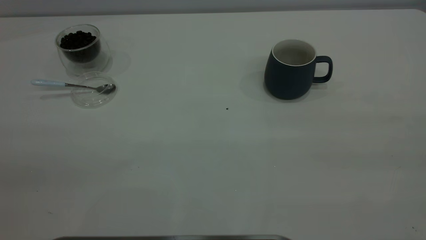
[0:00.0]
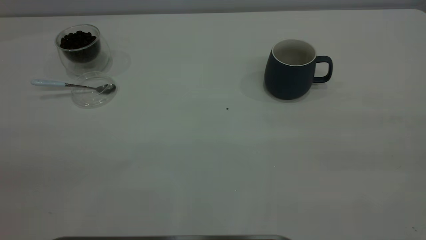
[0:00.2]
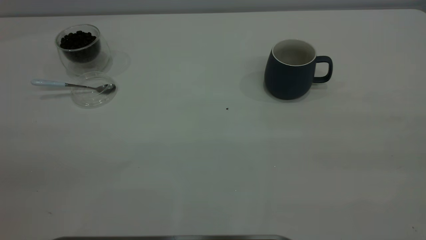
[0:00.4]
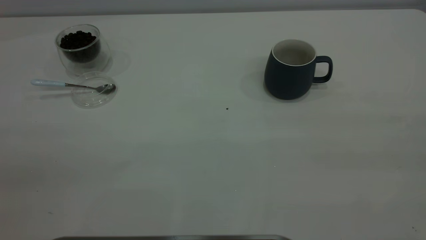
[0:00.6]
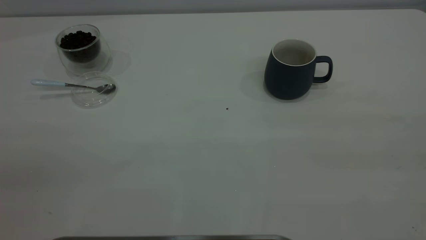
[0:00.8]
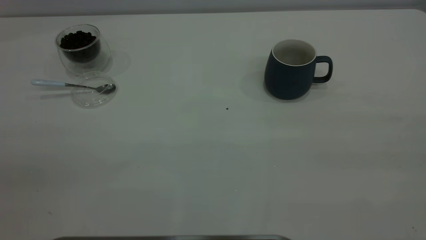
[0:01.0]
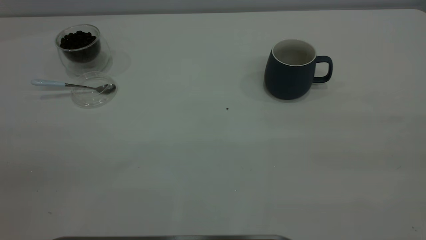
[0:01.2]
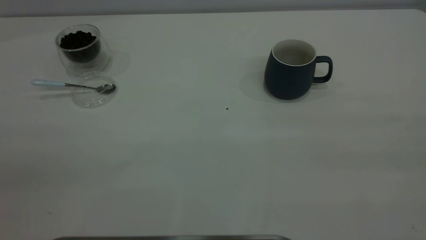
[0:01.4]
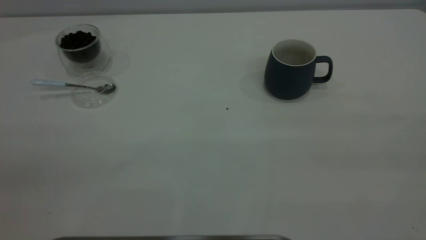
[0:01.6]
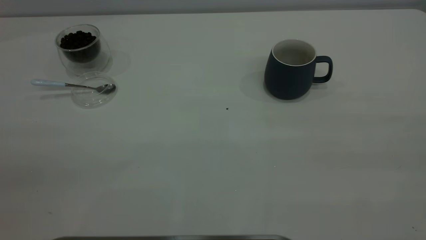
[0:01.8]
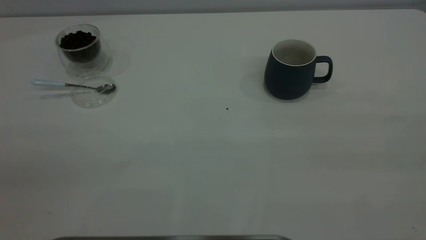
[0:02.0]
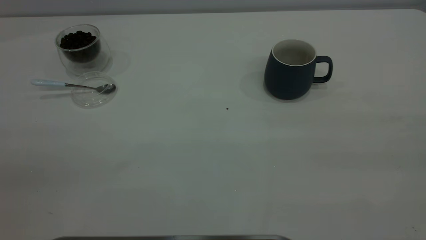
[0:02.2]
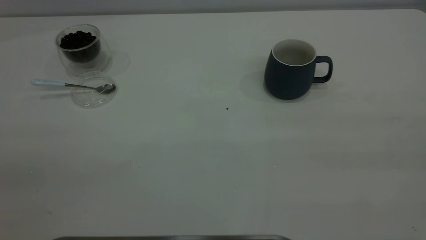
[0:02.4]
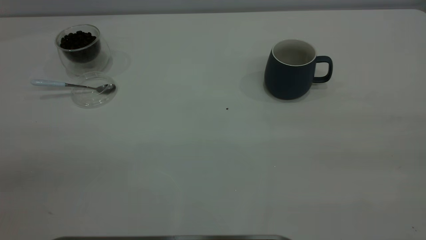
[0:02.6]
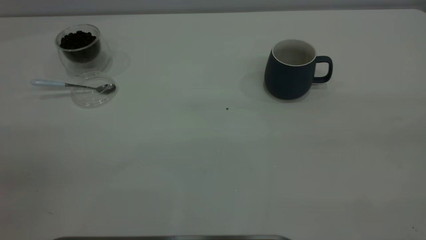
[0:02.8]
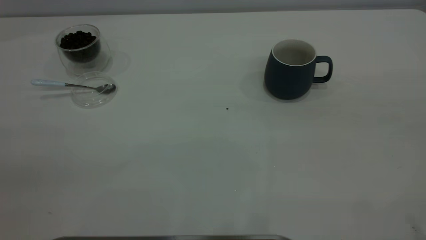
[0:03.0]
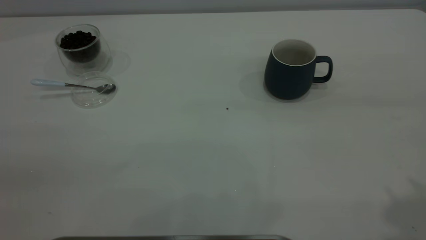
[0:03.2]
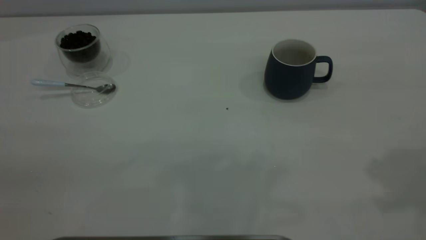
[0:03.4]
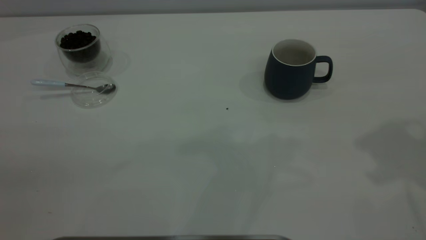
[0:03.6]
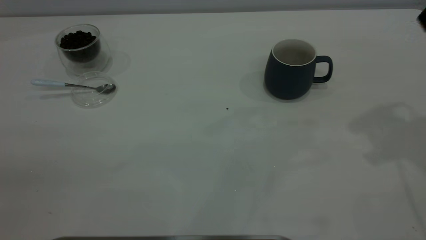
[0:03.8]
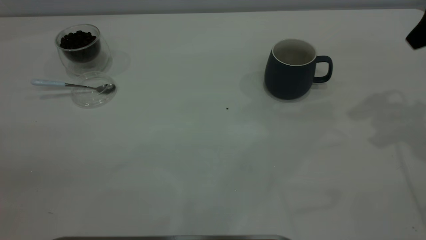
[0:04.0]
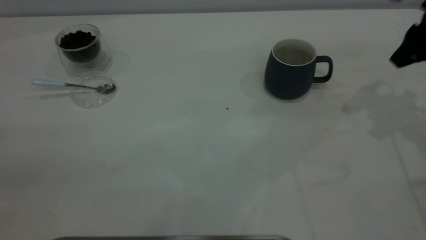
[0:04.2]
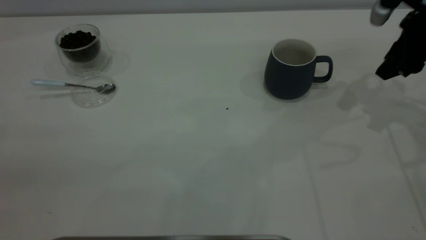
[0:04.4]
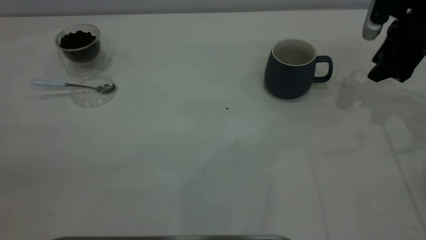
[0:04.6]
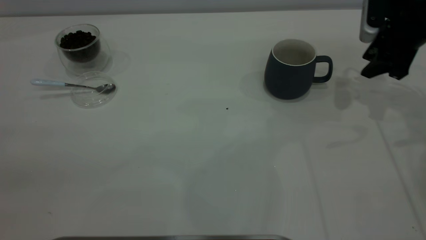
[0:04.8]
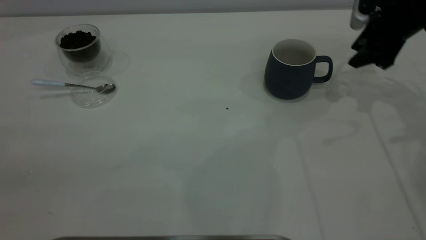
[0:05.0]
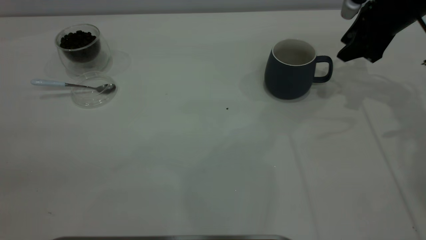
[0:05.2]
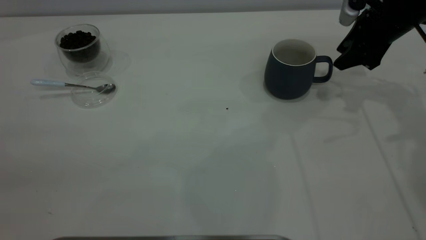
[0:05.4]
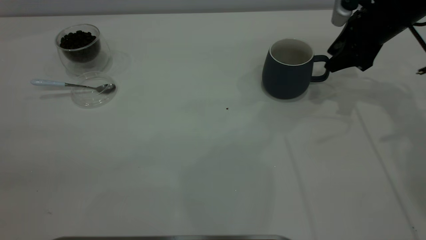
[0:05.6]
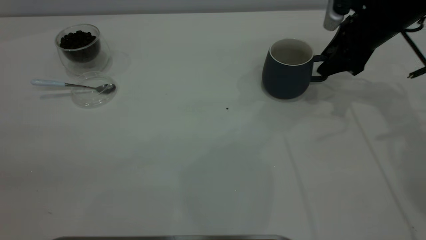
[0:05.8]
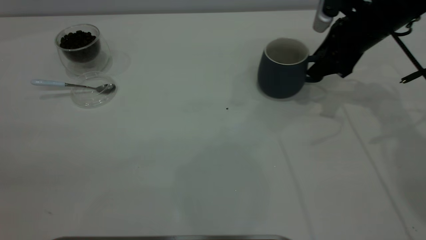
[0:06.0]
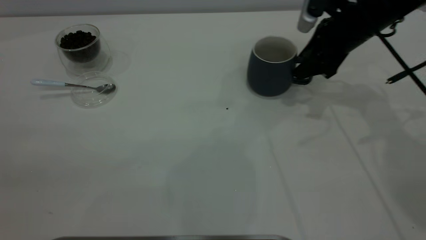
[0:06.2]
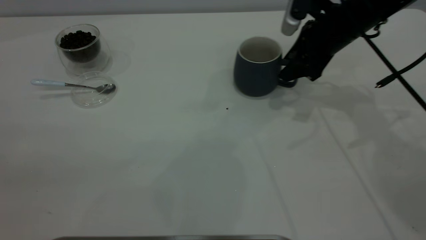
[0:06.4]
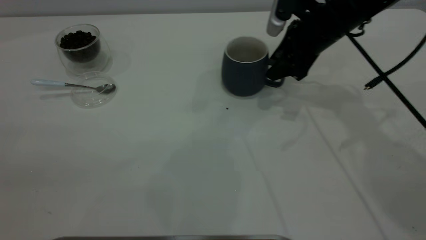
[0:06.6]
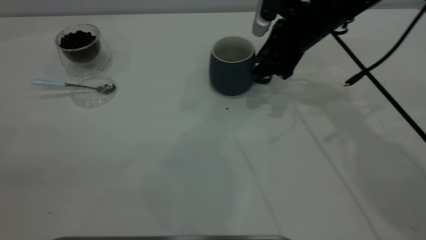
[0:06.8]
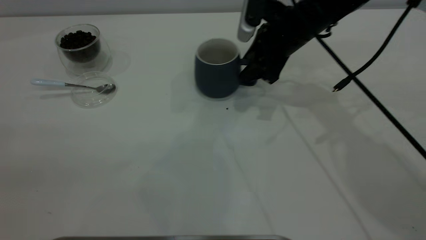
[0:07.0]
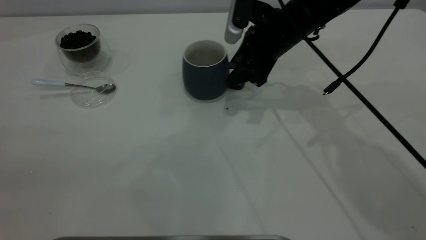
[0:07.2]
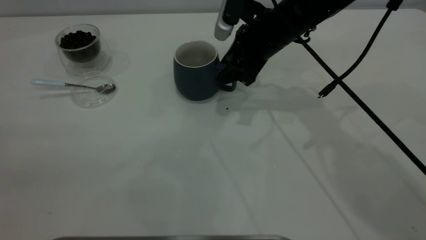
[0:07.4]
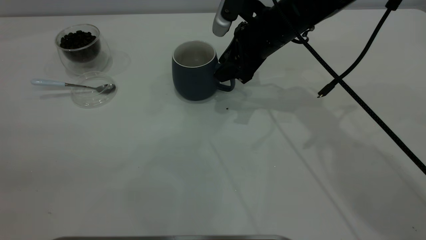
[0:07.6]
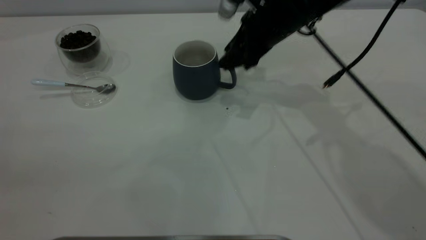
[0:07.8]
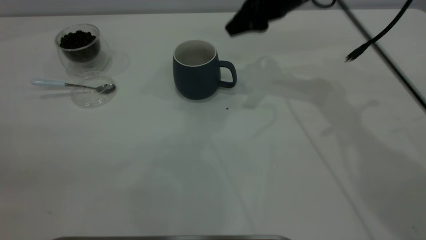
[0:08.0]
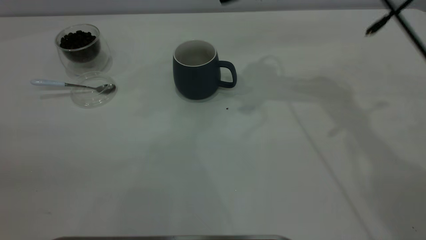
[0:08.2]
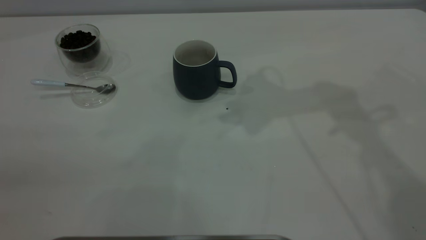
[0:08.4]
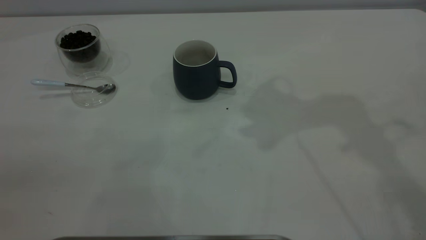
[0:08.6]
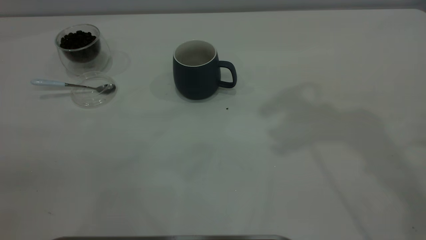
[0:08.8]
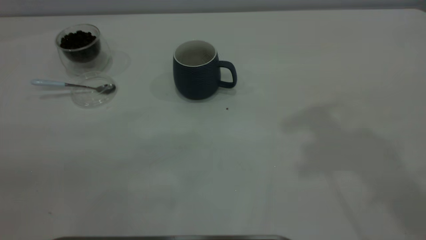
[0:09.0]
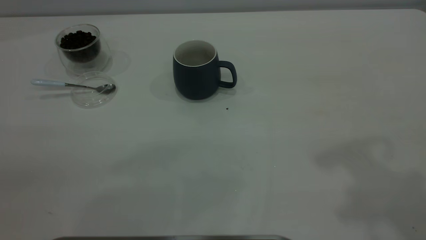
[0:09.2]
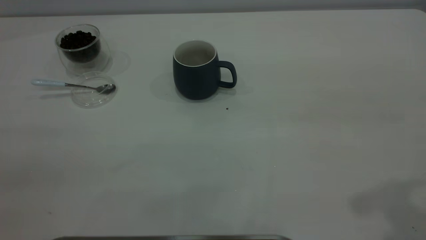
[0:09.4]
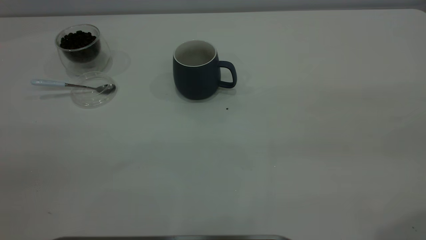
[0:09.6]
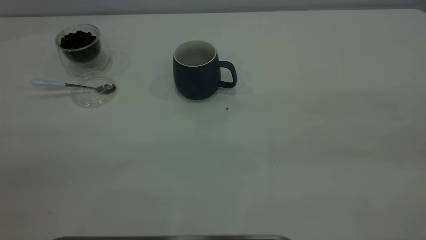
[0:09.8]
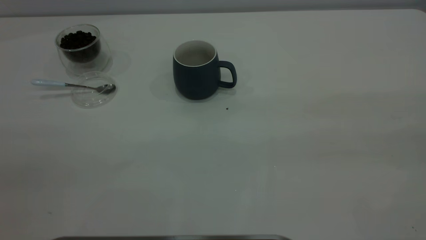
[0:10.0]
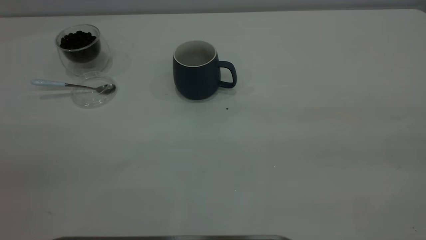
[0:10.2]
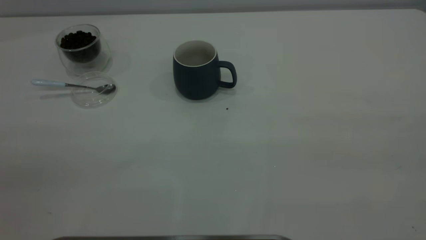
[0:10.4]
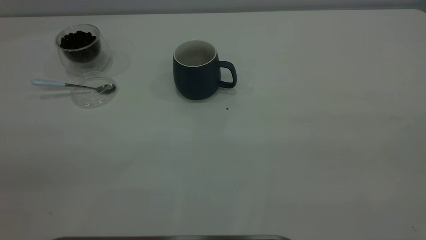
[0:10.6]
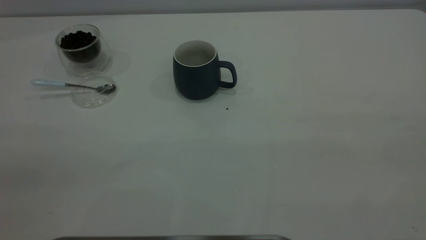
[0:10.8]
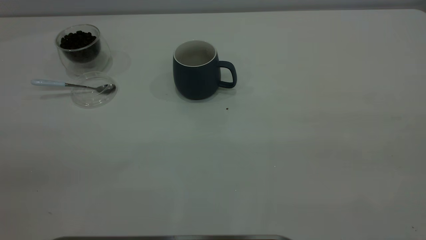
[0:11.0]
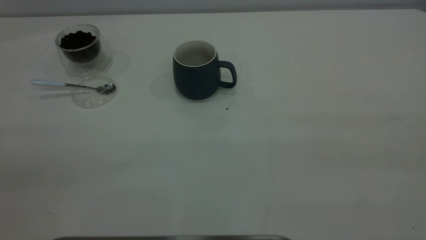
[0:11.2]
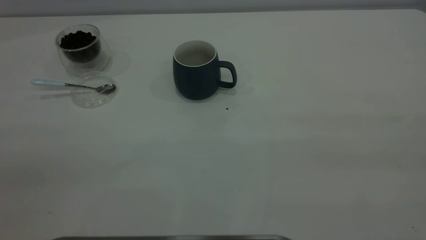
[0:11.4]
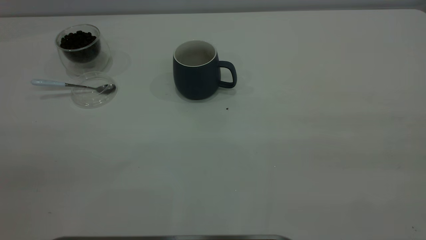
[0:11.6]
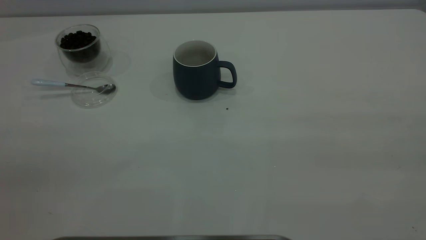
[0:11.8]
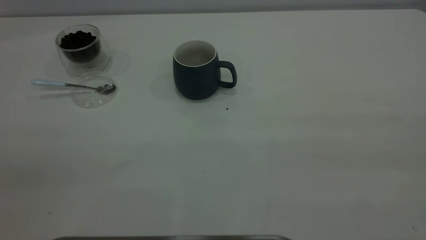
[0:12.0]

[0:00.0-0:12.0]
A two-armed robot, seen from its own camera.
Task of the whole recording: the right gripper place the grey cup in the center of the table, the left gripper take the blue spoon from the cup lid and scoop out the coffee beans from the coffee cup and put them into the grey cup, the left gripper put the spoon back into the cup lid.
Step, 0:00.0 to 0:08.0: Move the cup to the center of view.
0:00.0 to 0:01.6: Both grippers stay about where they are.
0:03.0 to 0:04.4: The right gripper goes roughly 40 cm forward and downward.
0:04.4 to 0:06.0: The right gripper shifts about 10 cm to the left.
0:06.0 to 0:07.6: The right gripper heads to the left, covering about 15 cm.
0:07.6 to 0:09.0: The right gripper heads upward and backward, covering roughly 35 cm.

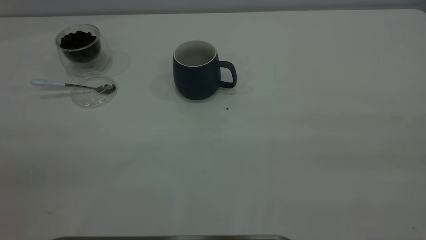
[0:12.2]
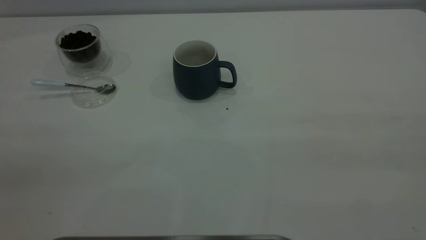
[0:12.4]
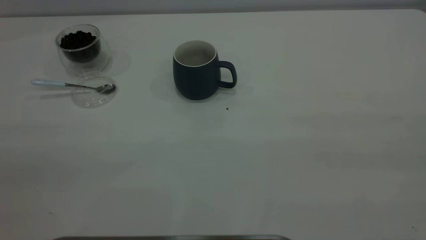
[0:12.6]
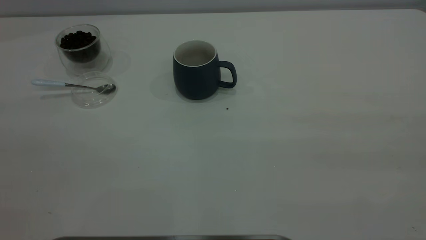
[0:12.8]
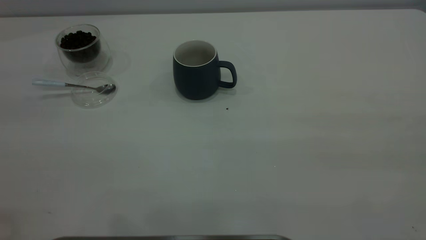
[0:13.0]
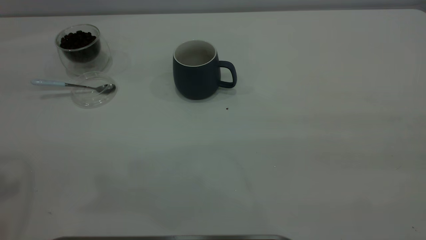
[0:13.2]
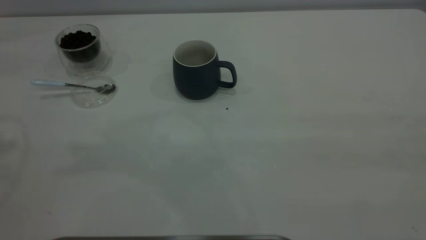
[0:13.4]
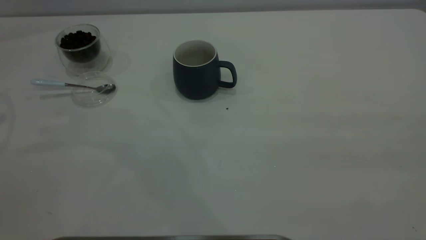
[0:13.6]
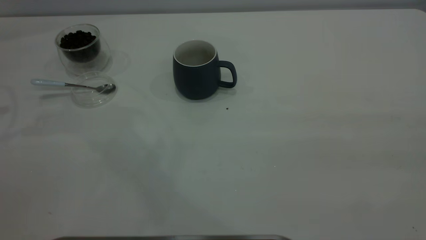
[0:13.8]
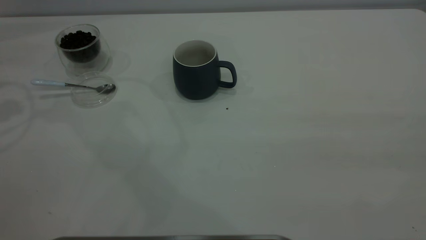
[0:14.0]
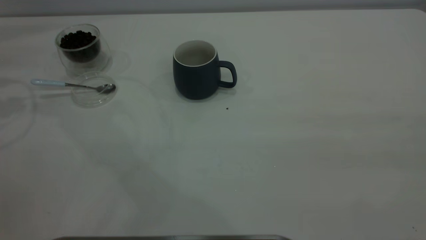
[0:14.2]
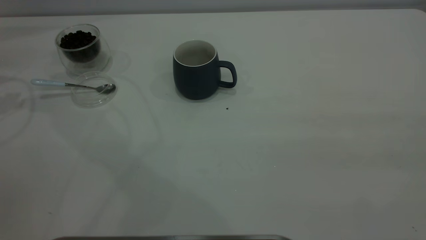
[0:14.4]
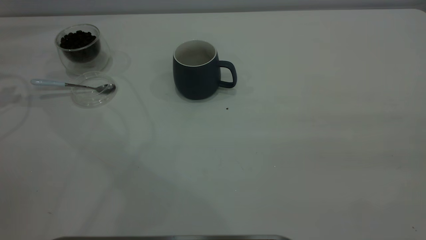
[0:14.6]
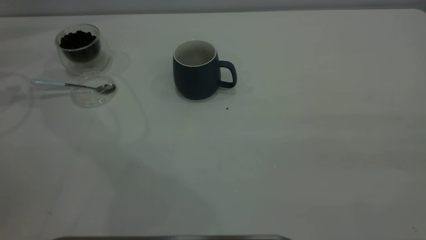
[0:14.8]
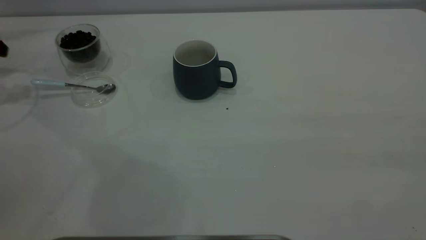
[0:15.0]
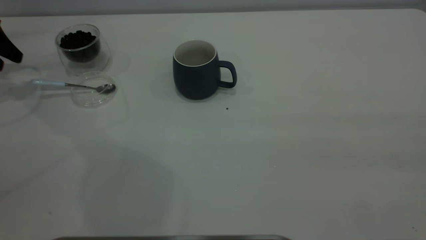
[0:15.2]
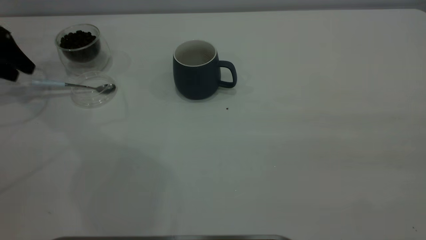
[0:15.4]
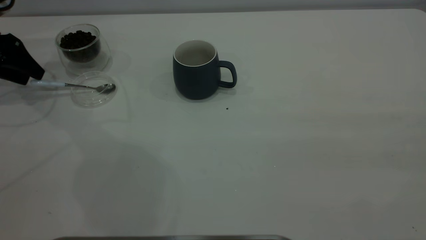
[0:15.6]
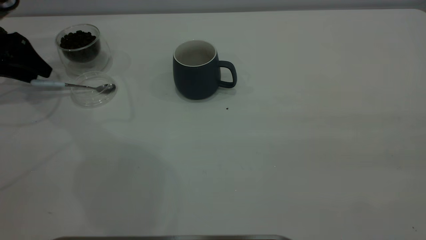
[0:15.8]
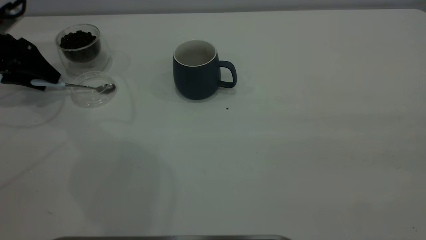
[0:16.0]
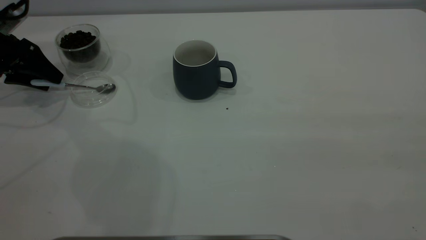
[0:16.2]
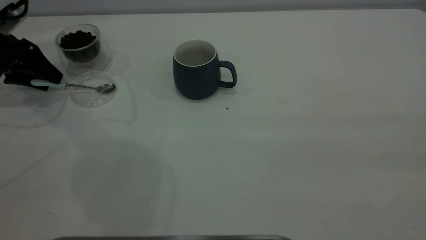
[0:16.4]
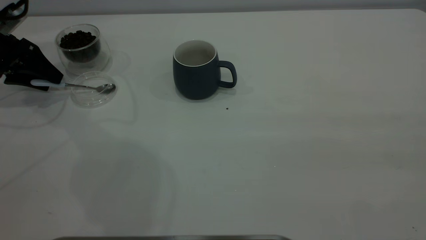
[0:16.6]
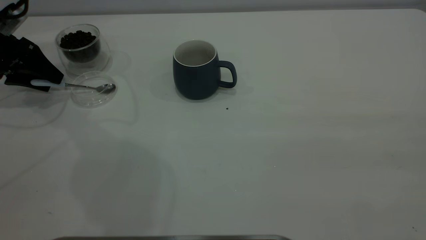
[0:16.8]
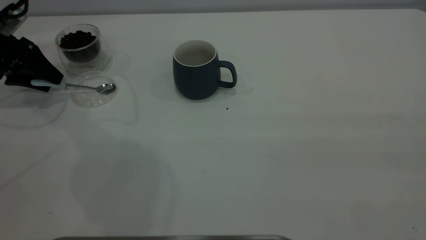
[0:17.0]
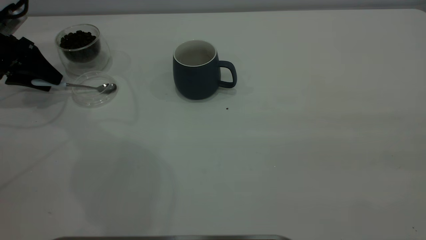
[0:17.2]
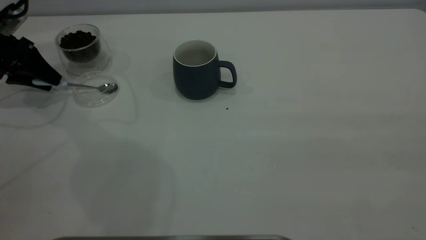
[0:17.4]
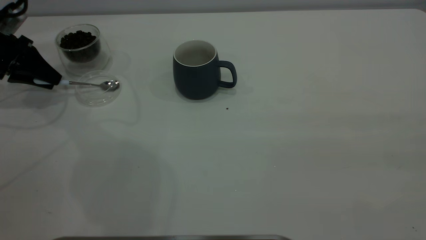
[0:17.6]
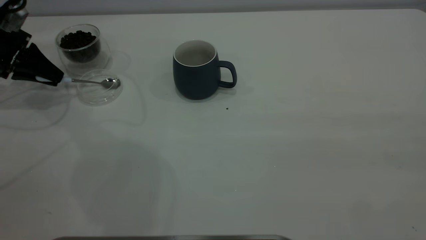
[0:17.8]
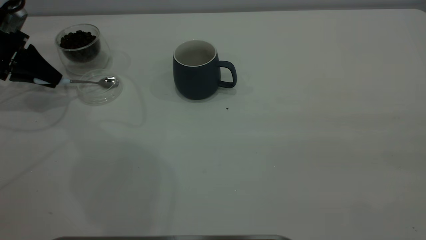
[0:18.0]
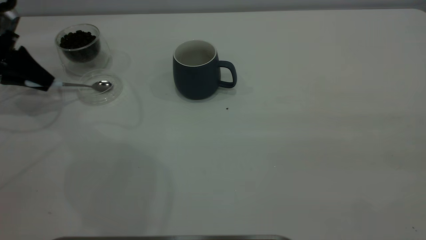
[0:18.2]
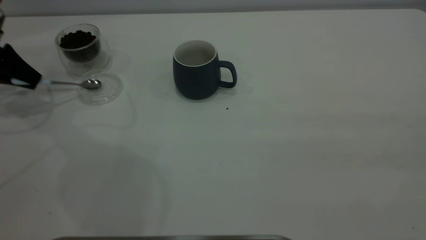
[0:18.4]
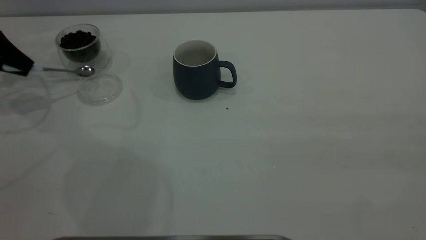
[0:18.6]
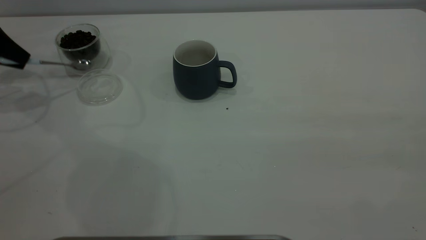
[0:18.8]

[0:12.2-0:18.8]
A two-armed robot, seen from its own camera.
Task of the whole recording: the right gripper place the grey cup in the center of the table, the left gripper take the blue spoon from the cup lid and scoop out the coffee beans from the coffee cup and put them into the grey cup, the left gripper put the spoon back into the cup lid.
0:13.8 to 0:15.4: The left gripper is displaced downward and forward by some 20 cm.
0:15.4 to 0:17.2: The grippers move only a little.
0:17.2 to 0:18.8: The left gripper travels upward by some 5 cm, and closes its fingers.
